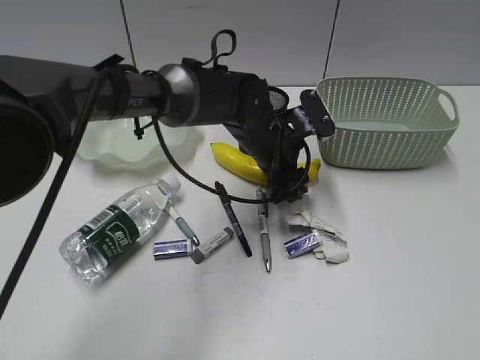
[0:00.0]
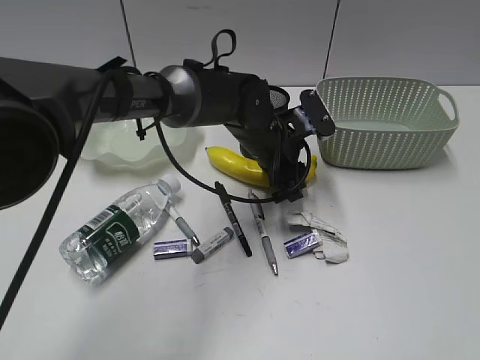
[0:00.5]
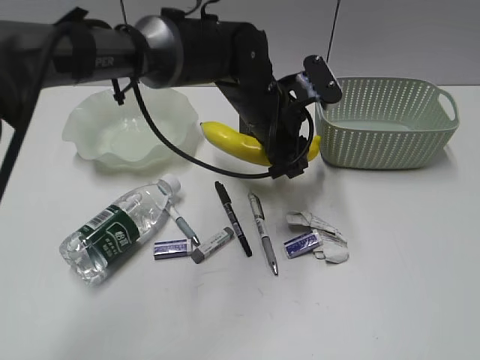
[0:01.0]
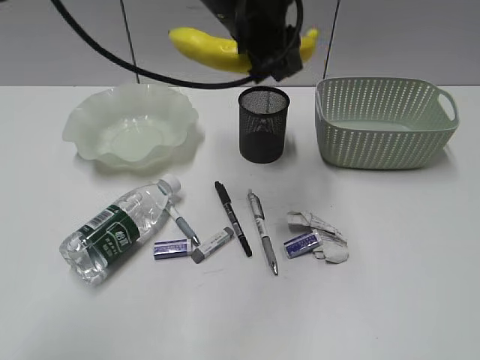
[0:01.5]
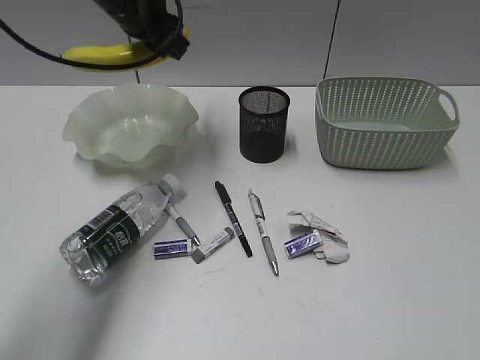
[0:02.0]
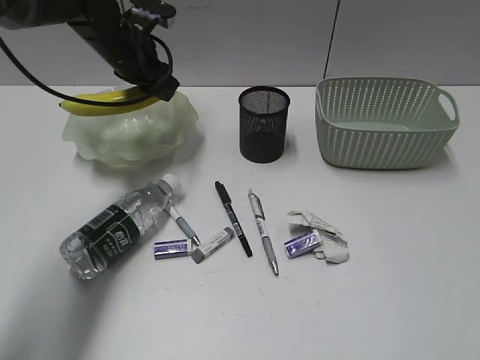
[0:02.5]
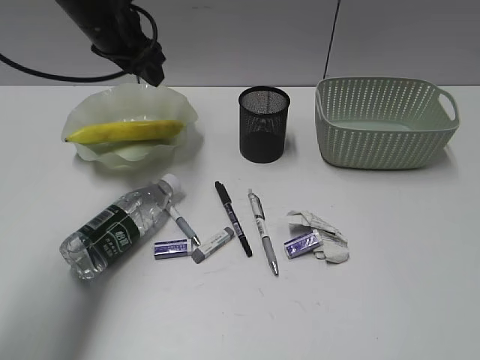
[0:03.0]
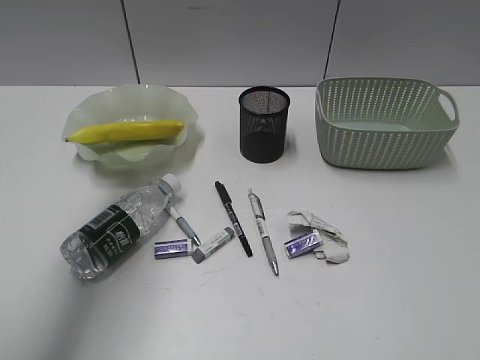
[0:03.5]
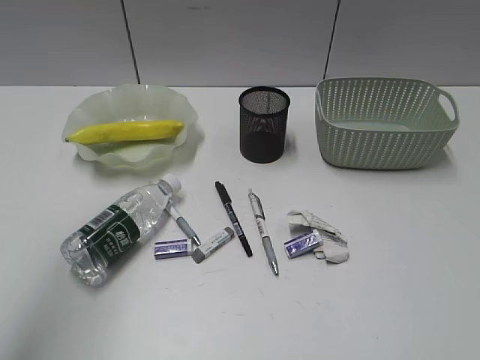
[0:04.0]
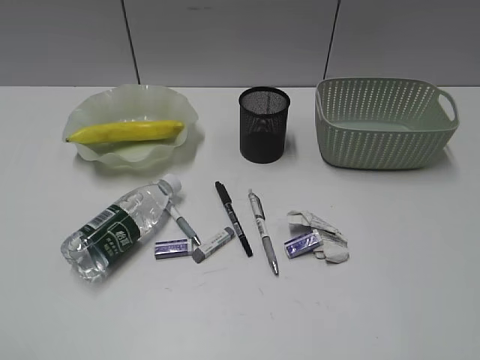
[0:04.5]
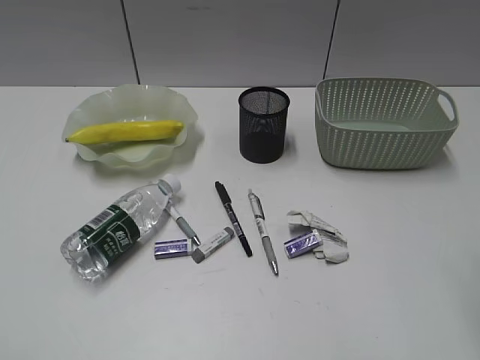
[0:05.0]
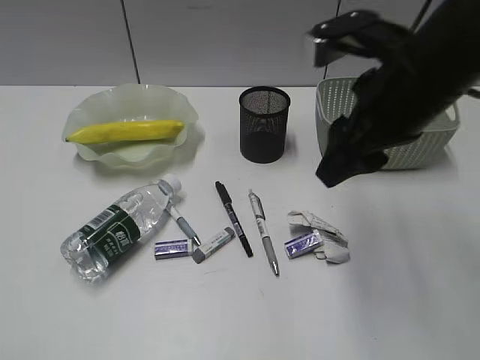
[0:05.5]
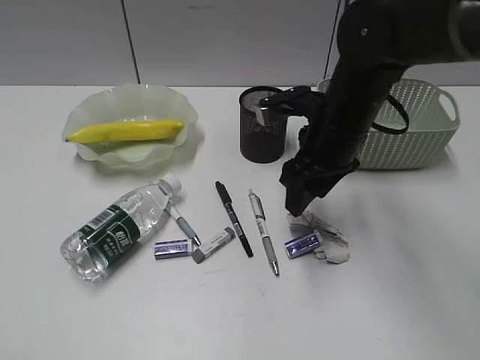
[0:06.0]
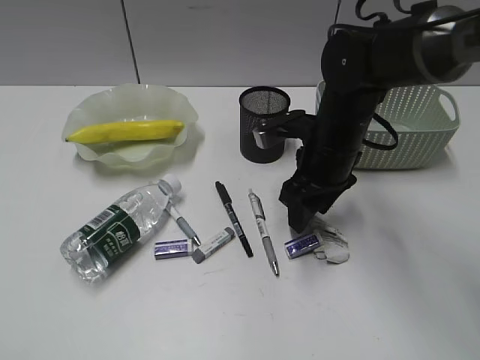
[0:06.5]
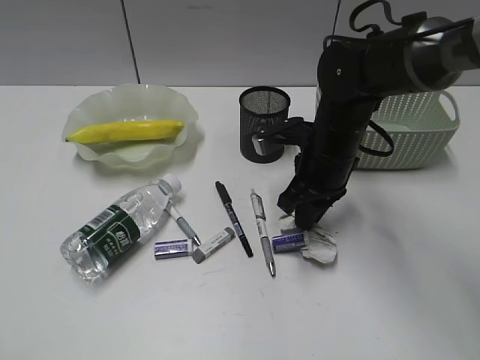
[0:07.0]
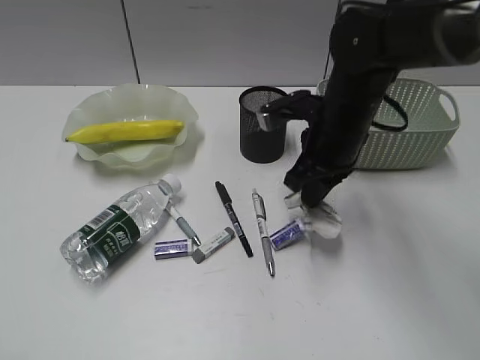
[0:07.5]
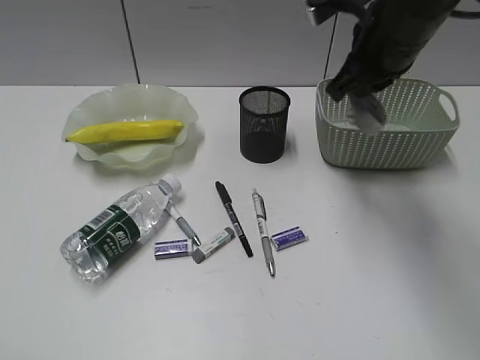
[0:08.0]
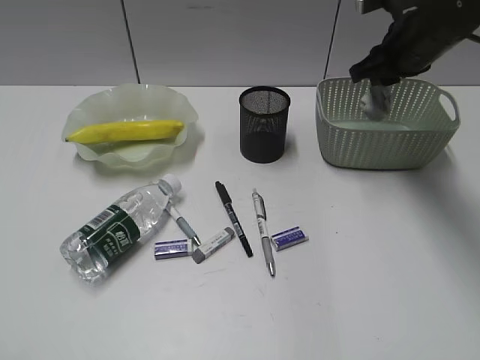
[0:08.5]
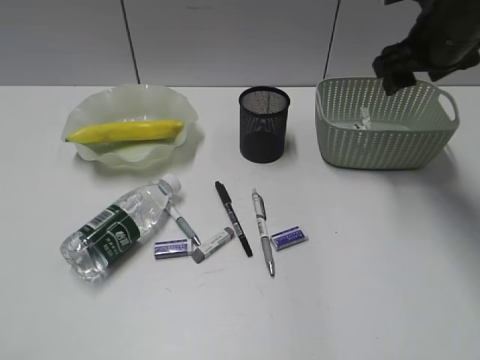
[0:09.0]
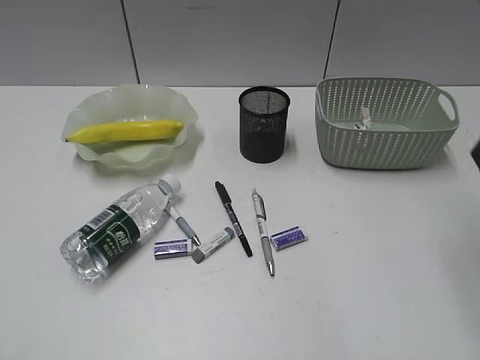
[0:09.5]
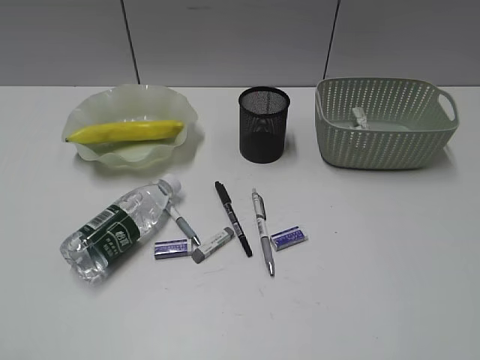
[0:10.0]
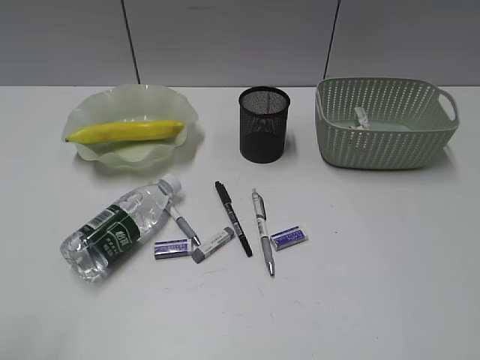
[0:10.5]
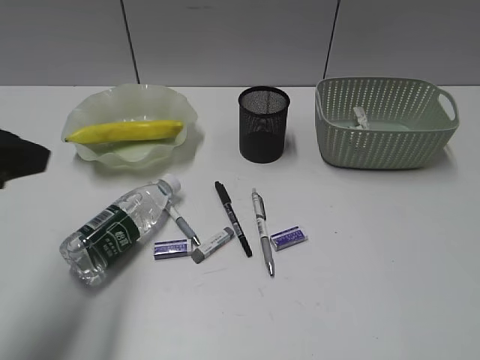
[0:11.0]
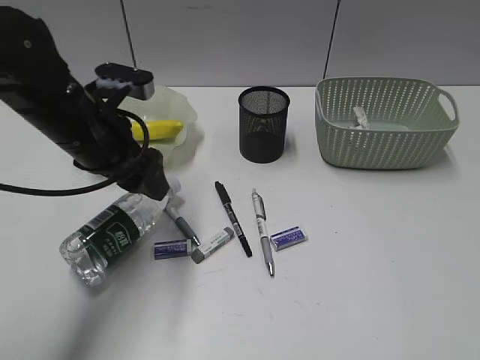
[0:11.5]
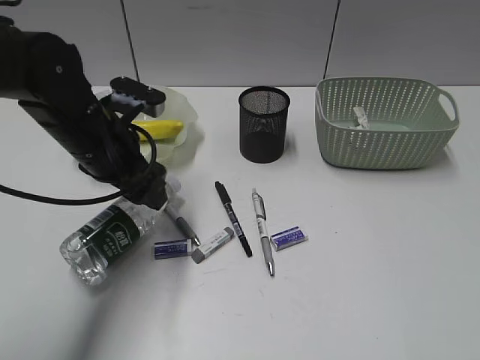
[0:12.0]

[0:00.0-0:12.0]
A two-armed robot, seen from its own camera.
Step, 0:00.5 to 0:02.5: Grasp the banana with left gripper.
Step, 0:03.0 to 0:07.0: Grasp the waste paper with right gripper.
Step, 0:07.5 to 0:08.5: Place the waste paper in the basket with right gripper.
0:00.0 to 0:02.0: The left gripper heads to the left, upward and forward, covering approximately 25 cm.
0:02.0 to 0:04.0: The left gripper travels backward, upward and to the left by about 35 cm.
0:04.0 to 0:06.0: The right gripper moves forward and to the left, some 40 cm, while the left gripper heads backward and downward, covering approximately 20 cm.
0:06.0 to 0:08.0: The right gripper moves upward, approximately 10 cm, and closes.
0:08.0 to 0:10.0: The right gripper goes some 35 cm backward and to the right, and opens.
0:10.0 to 0:12.0: The left gripper travels forward and to the right by about 35 cm, and opens up, while the right gripper heads backward, covering approximately 5 cm.

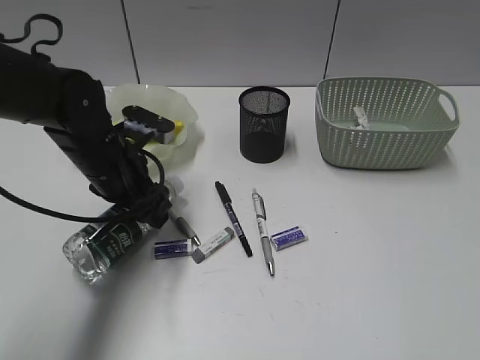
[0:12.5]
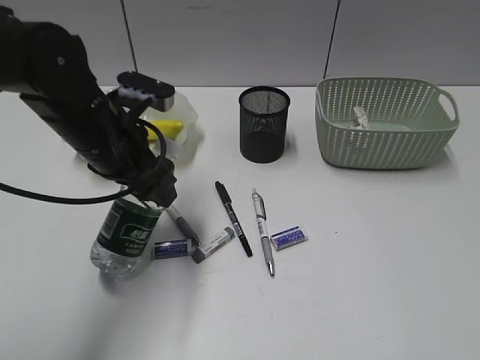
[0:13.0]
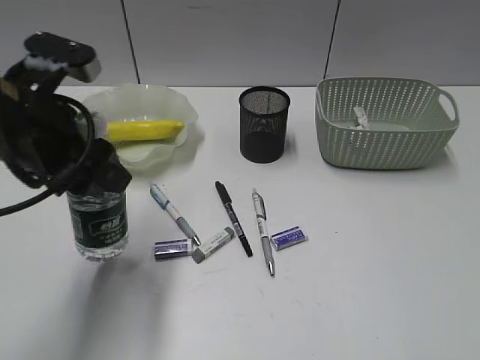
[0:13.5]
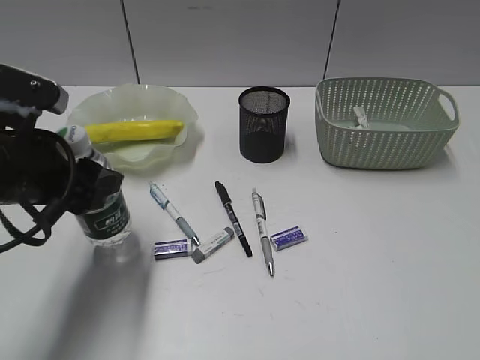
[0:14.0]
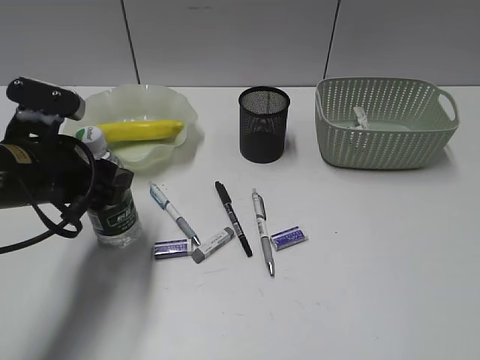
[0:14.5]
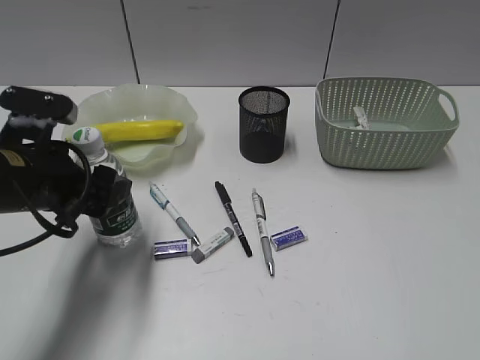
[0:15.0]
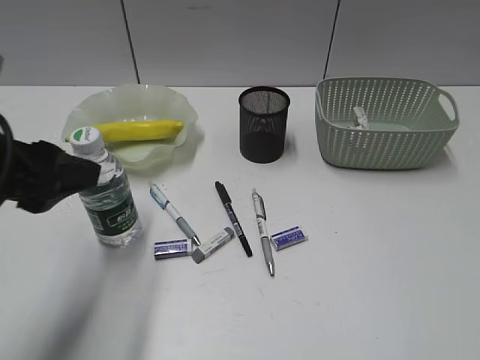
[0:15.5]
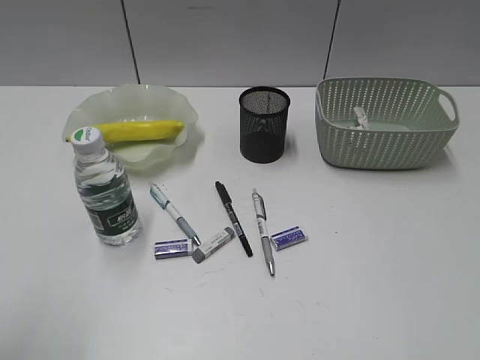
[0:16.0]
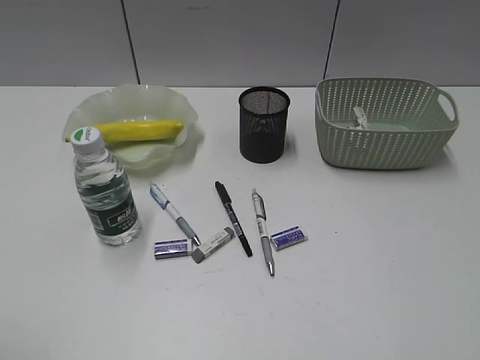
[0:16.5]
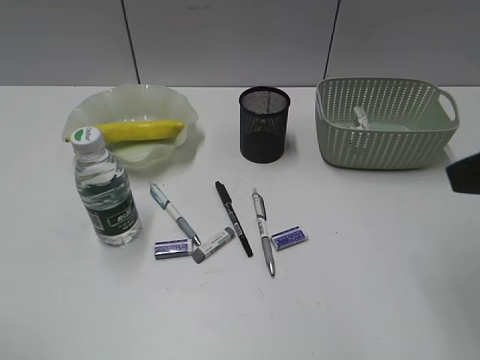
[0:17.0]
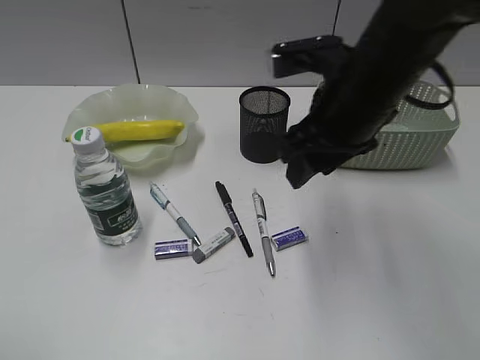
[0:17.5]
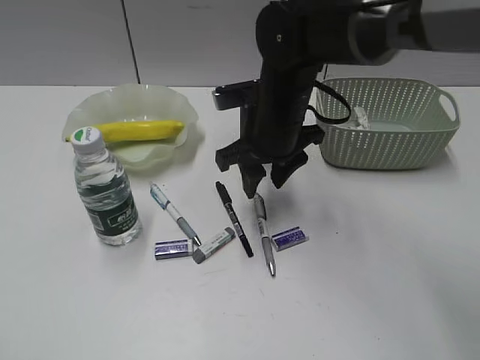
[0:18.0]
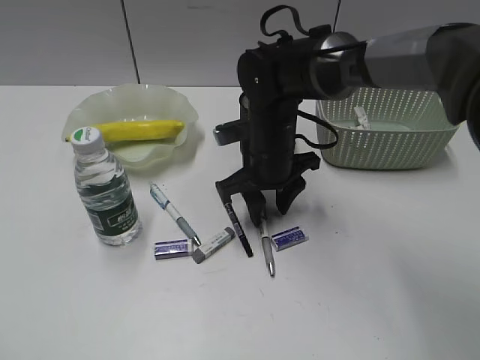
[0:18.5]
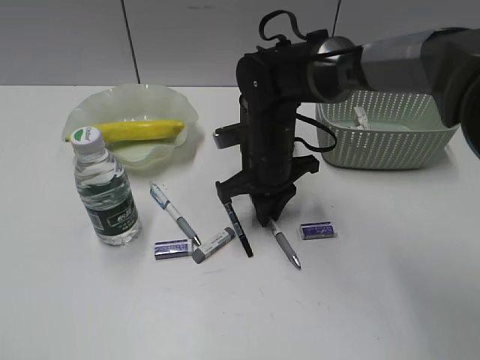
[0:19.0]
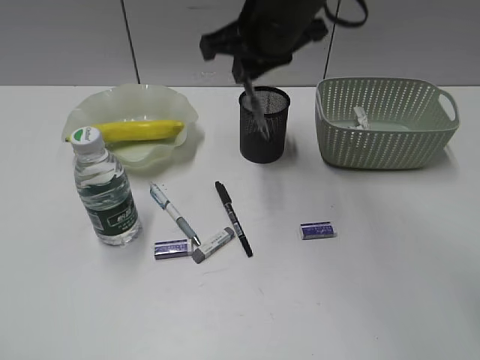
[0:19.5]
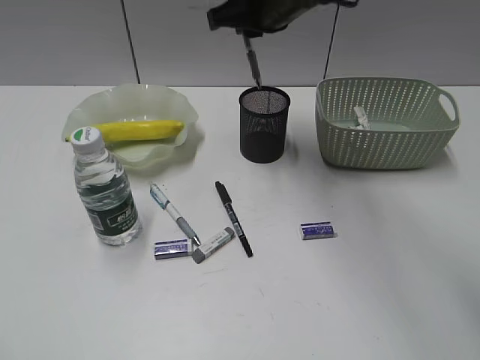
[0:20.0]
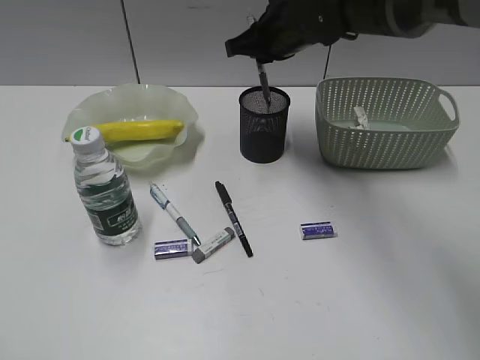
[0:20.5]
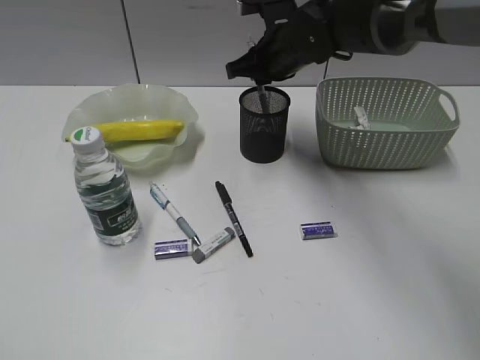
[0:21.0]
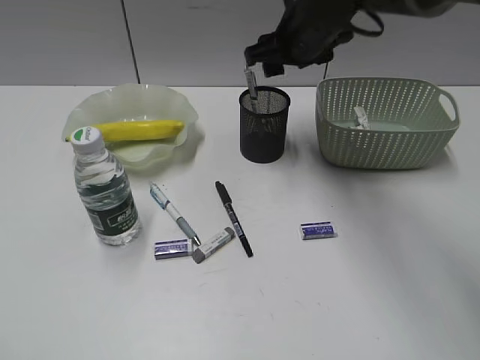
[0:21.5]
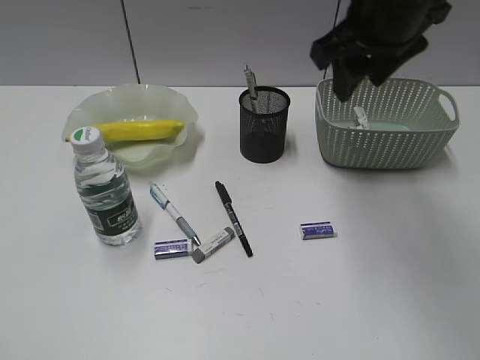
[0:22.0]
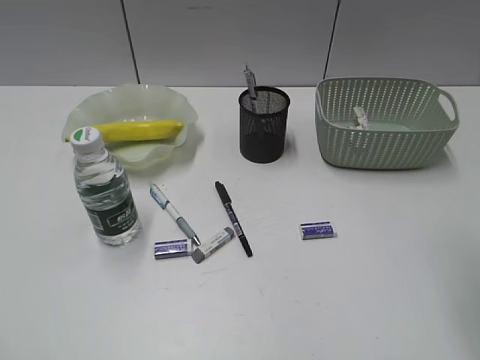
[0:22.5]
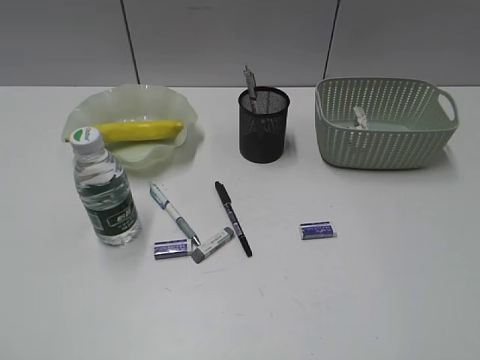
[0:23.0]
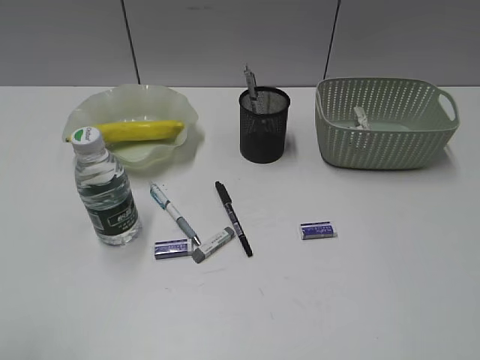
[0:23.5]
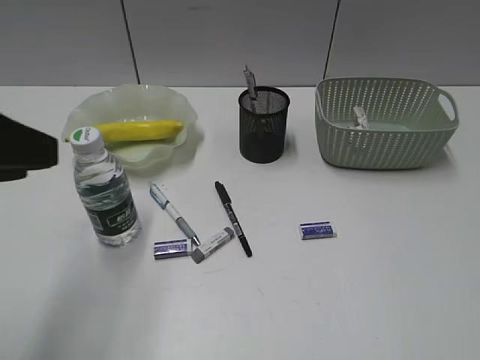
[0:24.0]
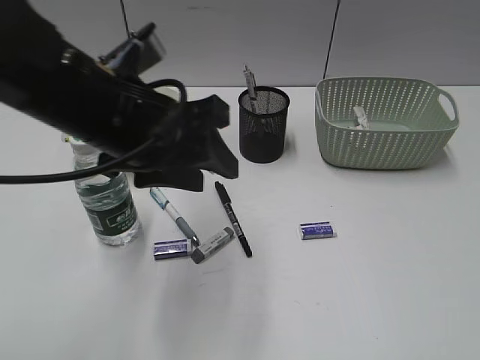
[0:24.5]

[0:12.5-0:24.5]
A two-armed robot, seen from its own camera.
Step, 0:13.0 to 0:15.5: Stand the bottle with left gripper.
Step, 0:16.0 to 0:18.5: Grasp the gray pen with right gripper.
Step, 0:19.0 to 0:21.0: Place the gray pen in pen holder with right gripper.
0:12.5 to 0:14.5: The left gripper goes about 10 cm backward and to the left.
0:14.5 to 0:16.5: The left gripper goes about 30 cm backward, upward and to the left.
0:16.5 to 0:18.5: The right gripper shifts roughly 50 cm forward, to the left and downward.
0:18.5 to 0:20.5: The right gripper heads upward and forward, covering about 15 cm, and closes.
0:20.5 to 0:22.5: The right gripper moves backward and to the right, approximately 30 cm, and opens its fingers.
0:22.5 to 0:24.5: The left gripper shifts about 30 cm forward and to the right. The right gripper travels backward and to the right by about 20 cm.

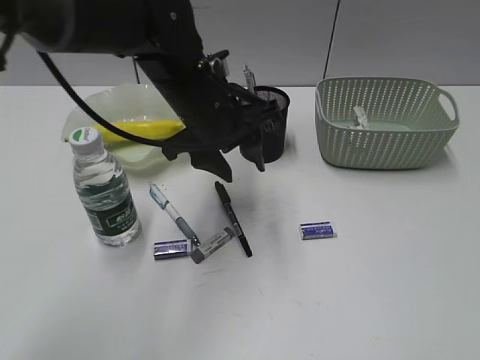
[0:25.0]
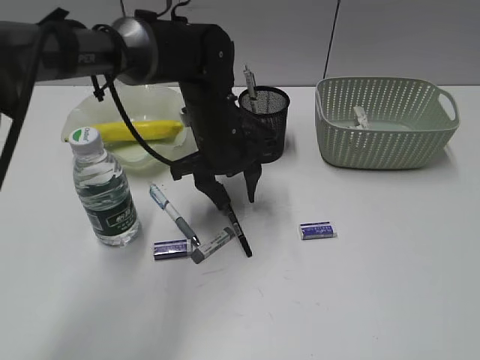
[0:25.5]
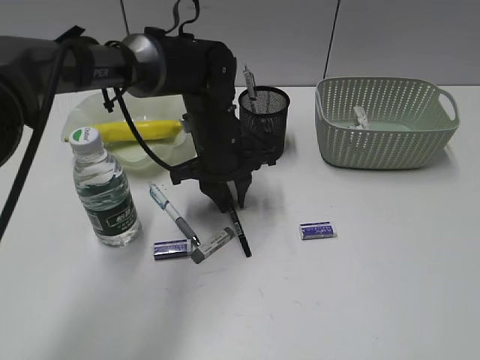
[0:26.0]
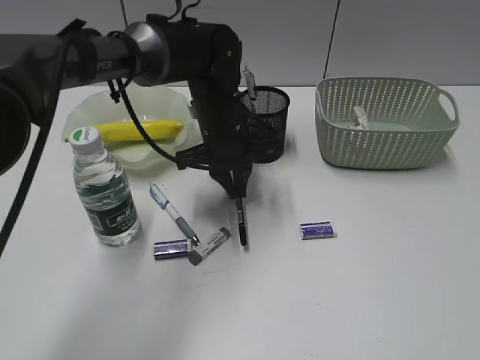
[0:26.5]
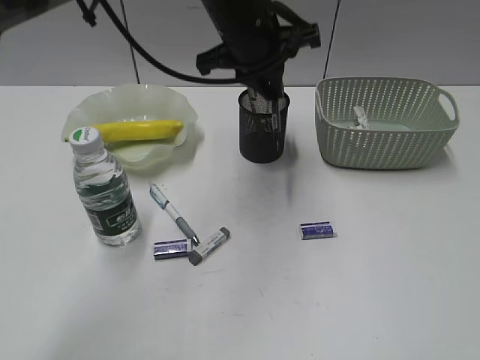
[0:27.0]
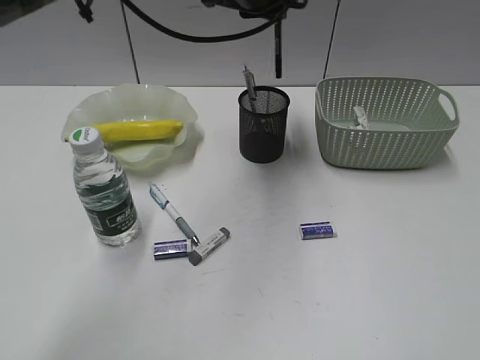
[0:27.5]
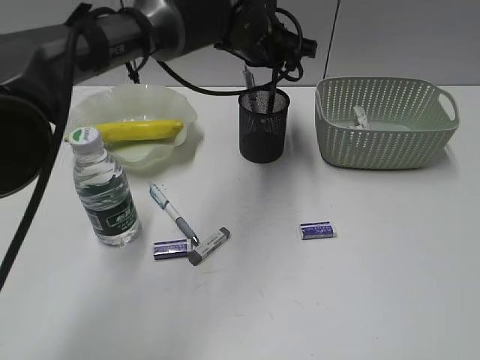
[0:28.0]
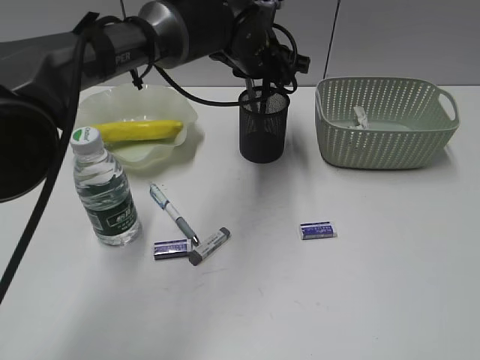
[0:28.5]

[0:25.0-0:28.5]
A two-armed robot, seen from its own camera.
0:25.0 to 0:27.0: The left gripper travels upward and forward by approximately 10 cm, and closes its fingers.
0:27.0 to 0:28.5: The left gripper shifts about 10 cm forward and downward, and opens.
